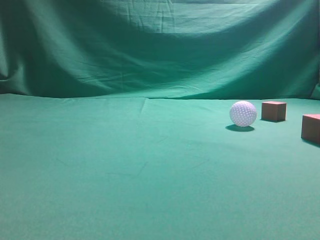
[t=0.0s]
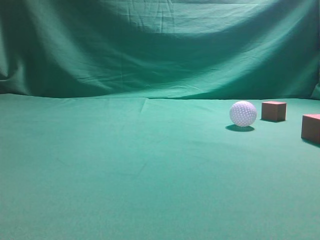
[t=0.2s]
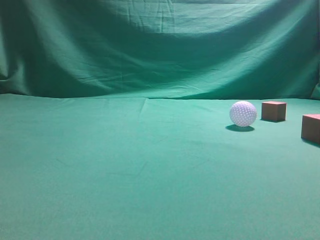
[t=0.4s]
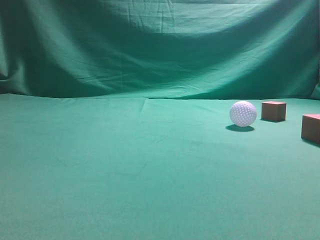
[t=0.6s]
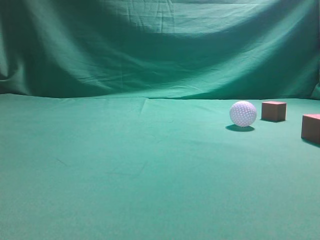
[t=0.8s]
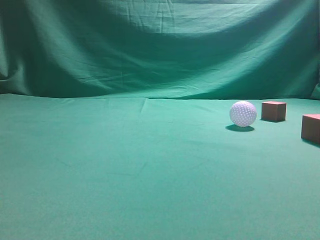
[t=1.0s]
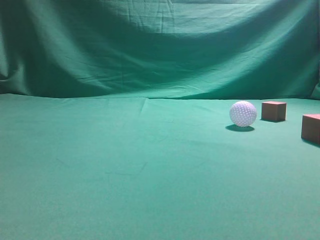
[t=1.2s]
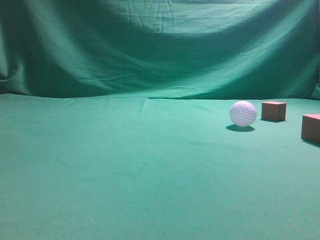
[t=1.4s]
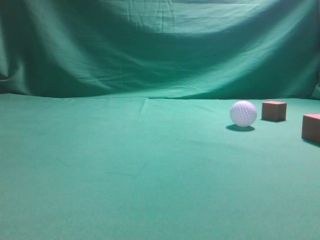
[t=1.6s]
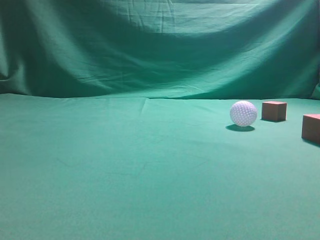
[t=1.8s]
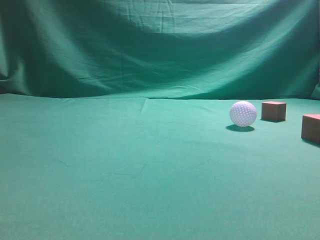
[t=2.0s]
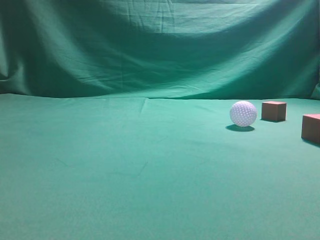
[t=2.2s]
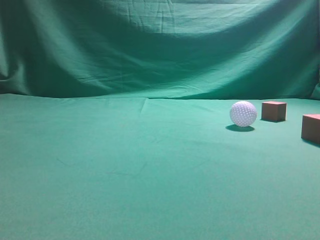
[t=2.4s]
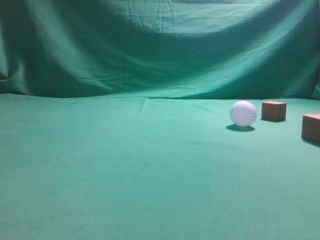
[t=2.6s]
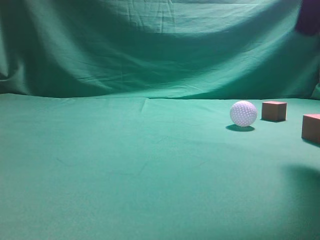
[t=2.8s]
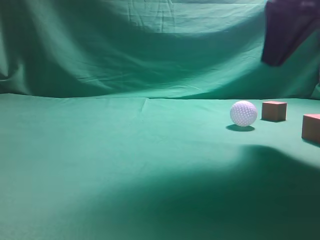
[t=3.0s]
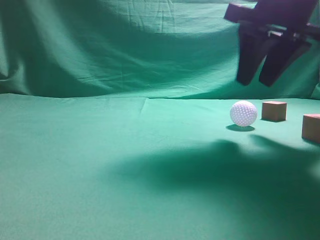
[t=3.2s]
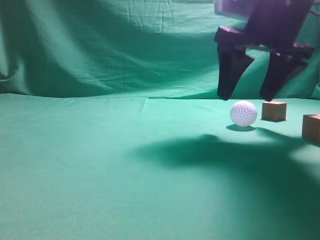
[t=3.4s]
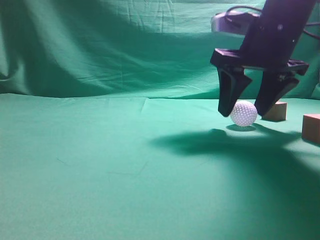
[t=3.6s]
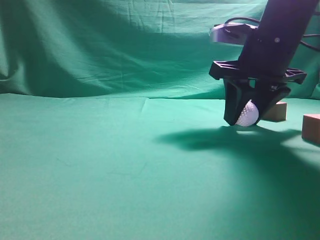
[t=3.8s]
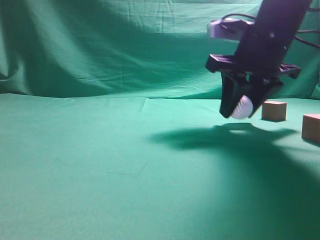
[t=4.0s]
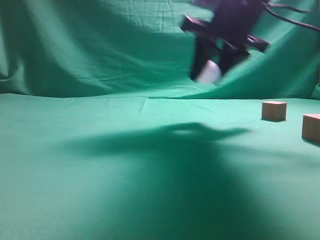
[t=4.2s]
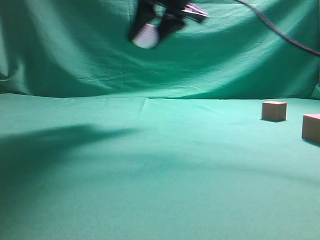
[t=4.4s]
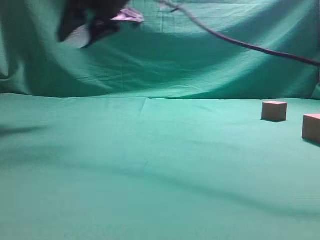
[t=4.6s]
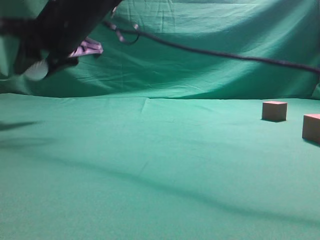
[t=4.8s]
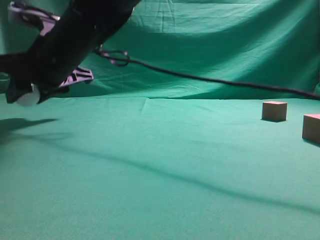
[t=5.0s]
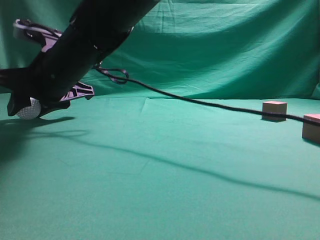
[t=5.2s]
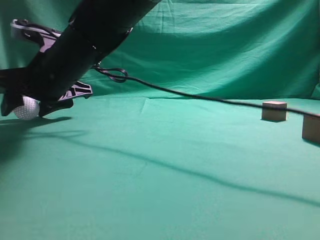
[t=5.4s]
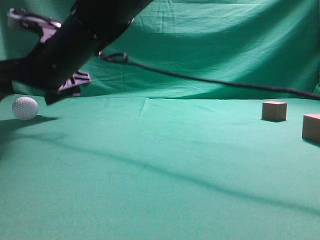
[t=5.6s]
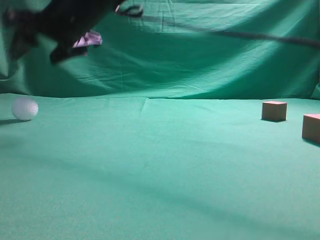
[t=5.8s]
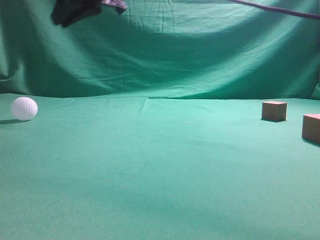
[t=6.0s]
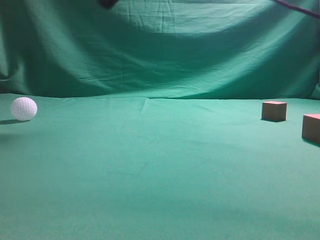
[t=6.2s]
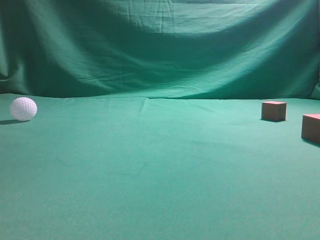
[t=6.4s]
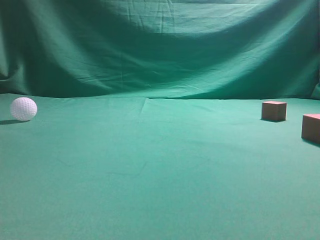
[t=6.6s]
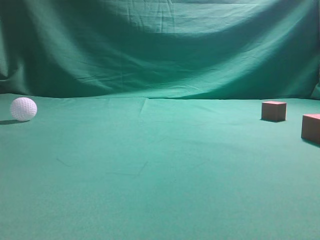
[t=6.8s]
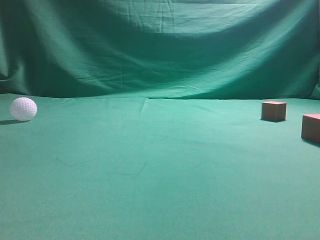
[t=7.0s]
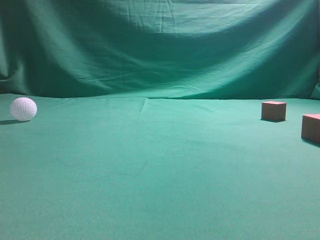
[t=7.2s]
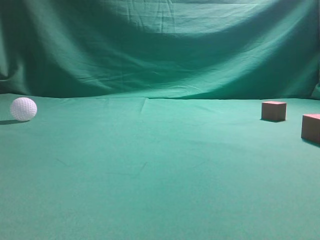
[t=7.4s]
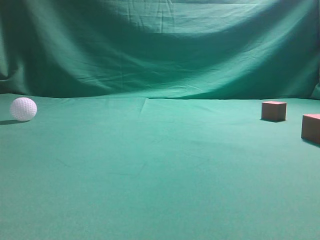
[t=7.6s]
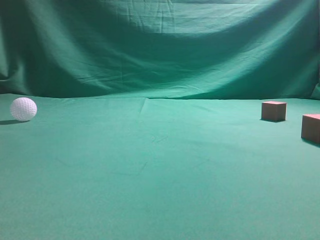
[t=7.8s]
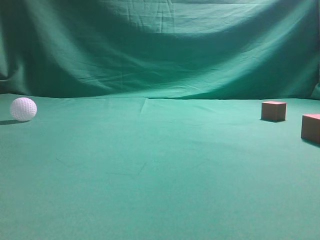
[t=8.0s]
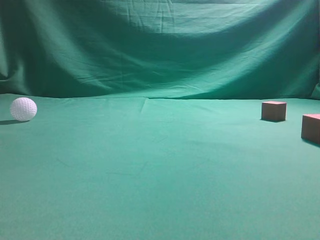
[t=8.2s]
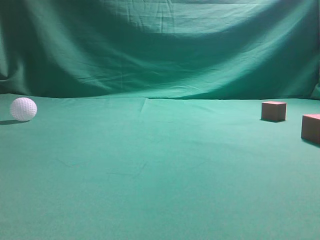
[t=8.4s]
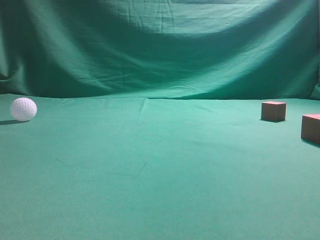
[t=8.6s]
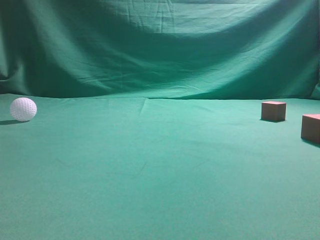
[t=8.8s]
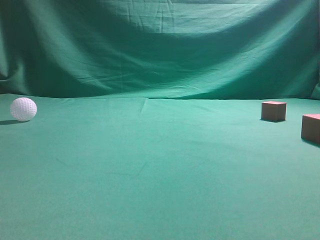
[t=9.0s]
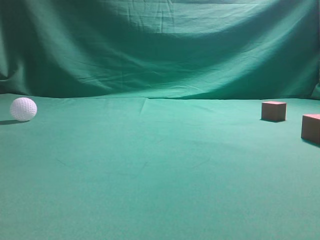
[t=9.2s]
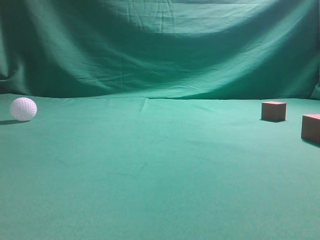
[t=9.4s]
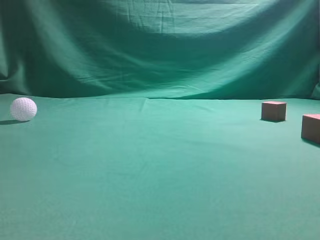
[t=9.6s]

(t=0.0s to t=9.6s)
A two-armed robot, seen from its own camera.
Step, t=0.0s - t=4.0s: Grasp the spherical object on the right side.
t=1.6s - t=3.2s: The right gripper moves forward and to the left, some 30 cm, and opens its fingers.
t=3.2s - t=4.8s: The right gripper moves to the left, roughly 30 cm, and opens, then closes again.
t=4.8s - t=6.4s: The right gripper moves upward and to the right, some 25 cm, and closes up.
